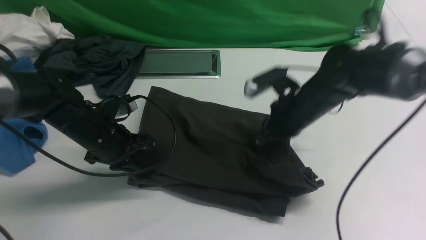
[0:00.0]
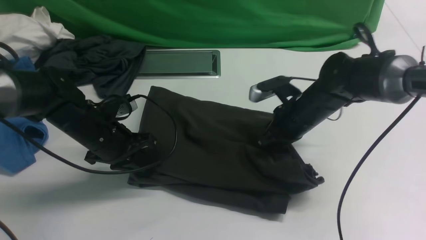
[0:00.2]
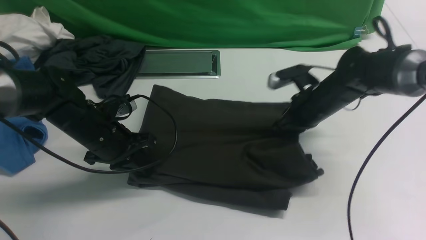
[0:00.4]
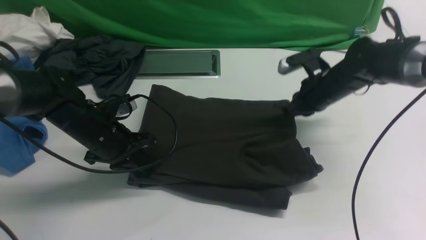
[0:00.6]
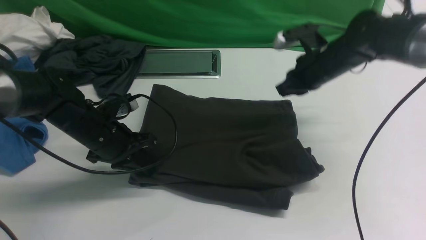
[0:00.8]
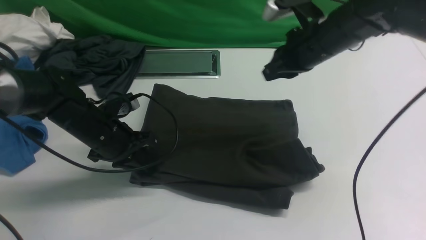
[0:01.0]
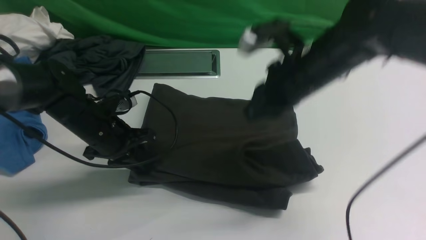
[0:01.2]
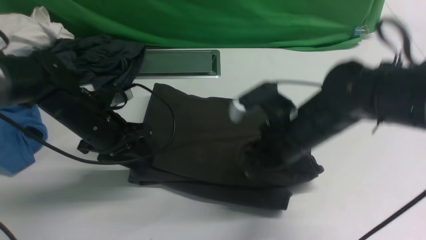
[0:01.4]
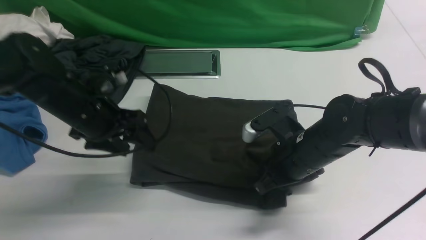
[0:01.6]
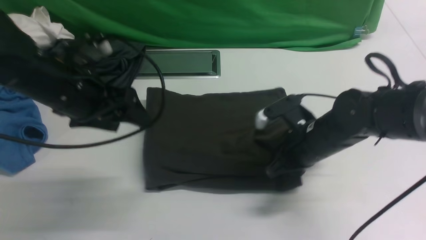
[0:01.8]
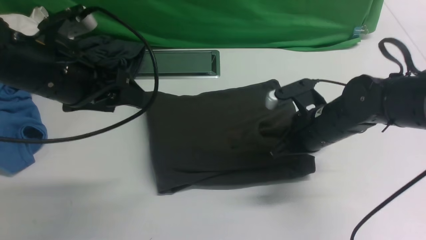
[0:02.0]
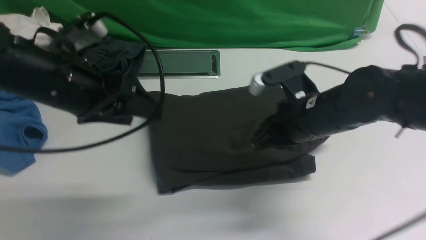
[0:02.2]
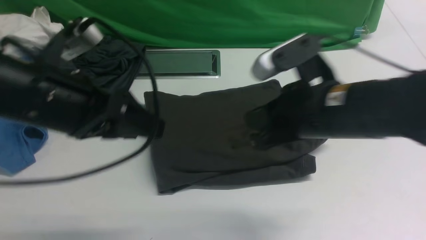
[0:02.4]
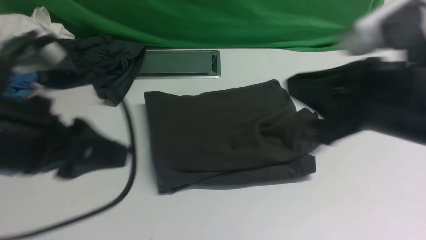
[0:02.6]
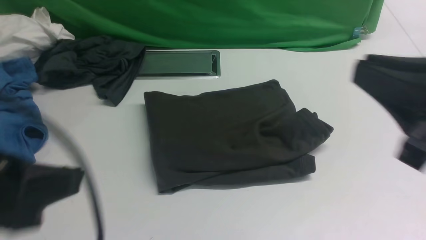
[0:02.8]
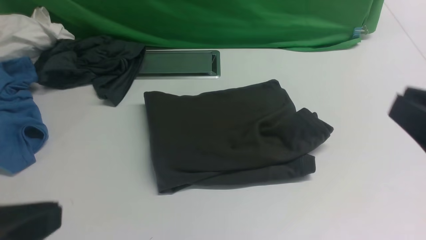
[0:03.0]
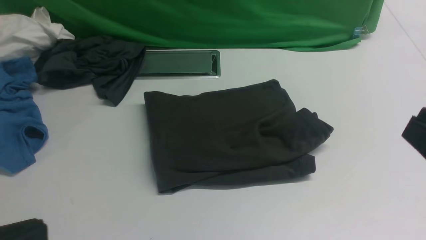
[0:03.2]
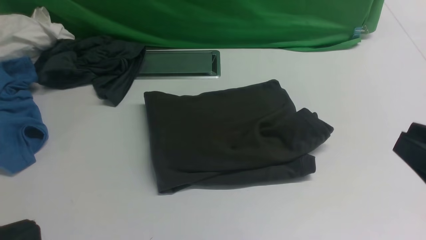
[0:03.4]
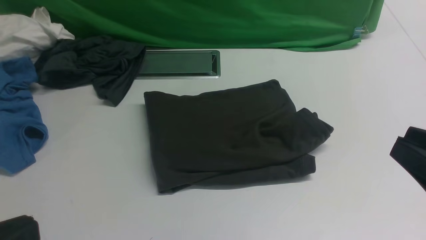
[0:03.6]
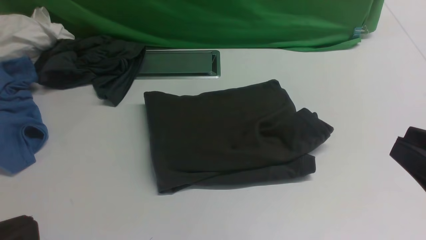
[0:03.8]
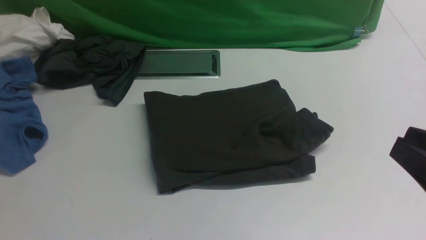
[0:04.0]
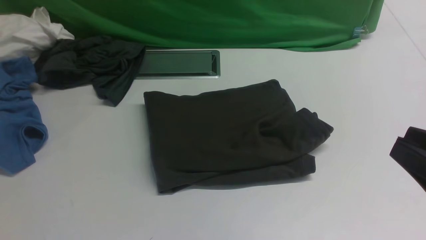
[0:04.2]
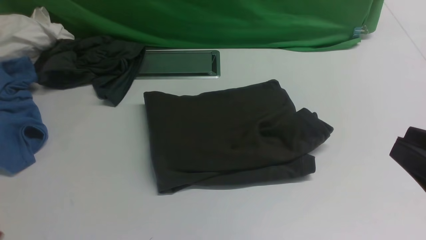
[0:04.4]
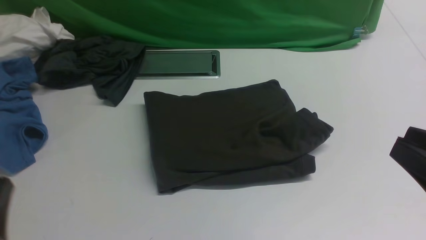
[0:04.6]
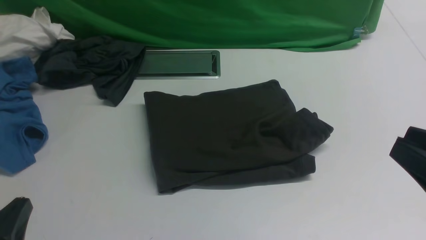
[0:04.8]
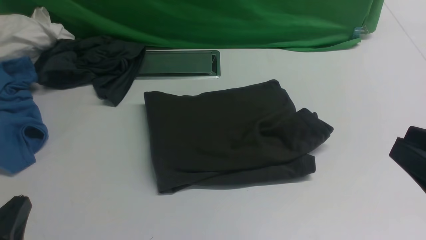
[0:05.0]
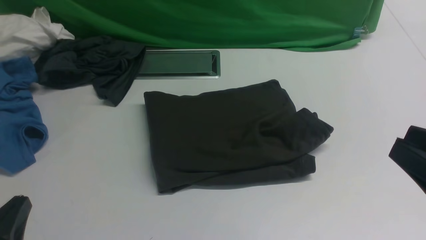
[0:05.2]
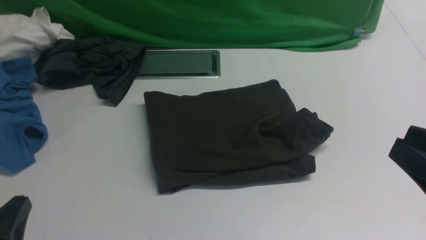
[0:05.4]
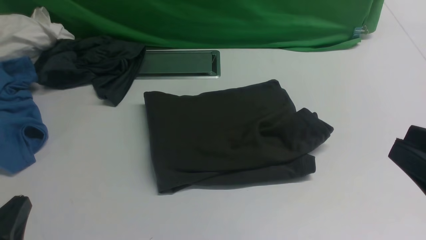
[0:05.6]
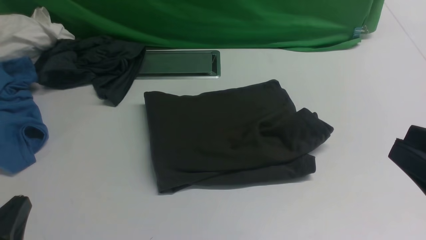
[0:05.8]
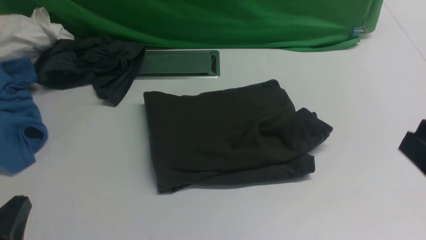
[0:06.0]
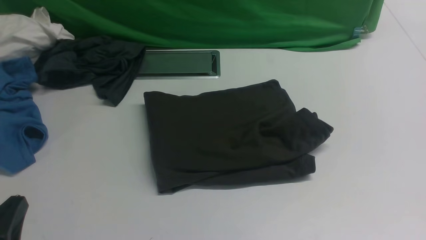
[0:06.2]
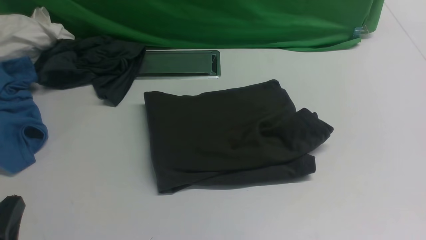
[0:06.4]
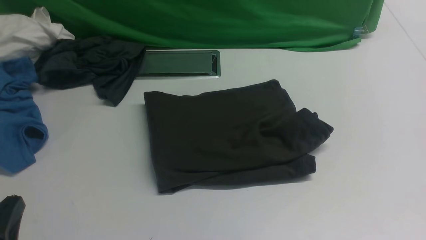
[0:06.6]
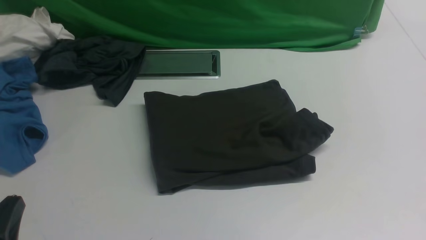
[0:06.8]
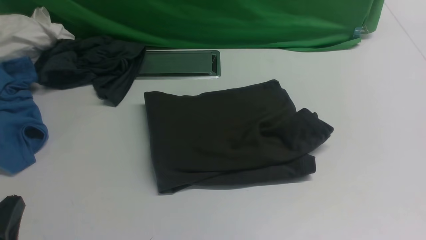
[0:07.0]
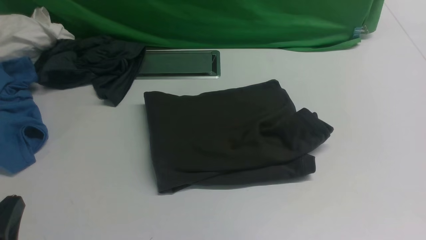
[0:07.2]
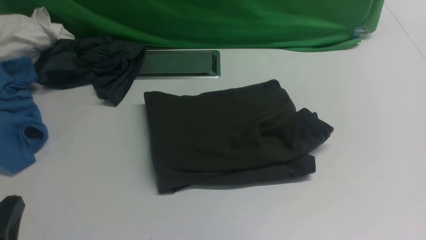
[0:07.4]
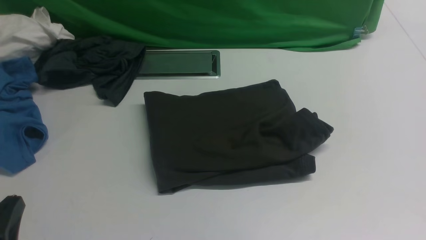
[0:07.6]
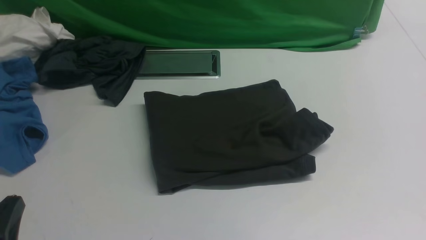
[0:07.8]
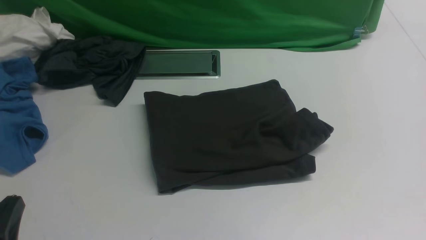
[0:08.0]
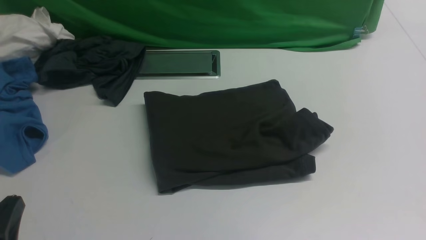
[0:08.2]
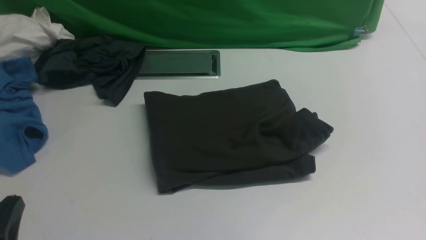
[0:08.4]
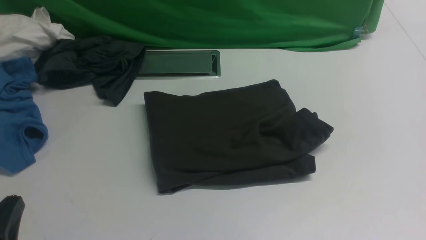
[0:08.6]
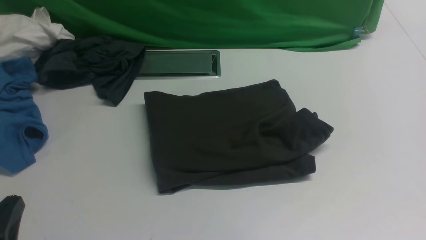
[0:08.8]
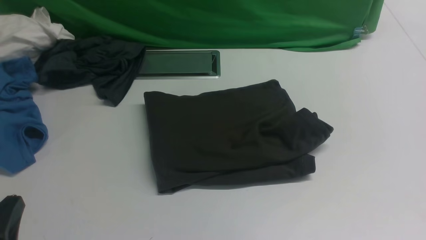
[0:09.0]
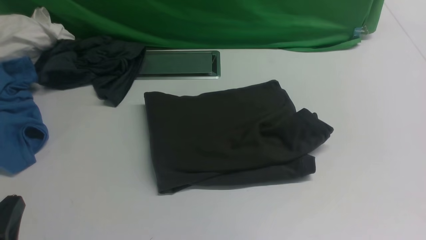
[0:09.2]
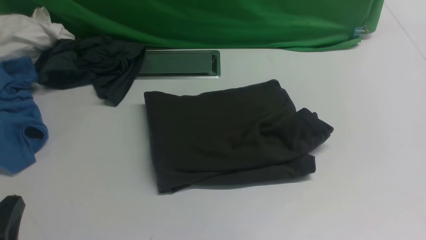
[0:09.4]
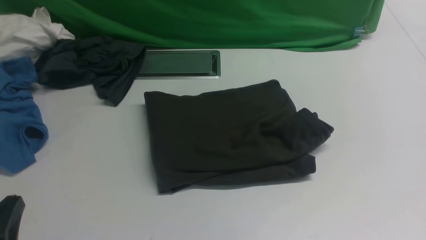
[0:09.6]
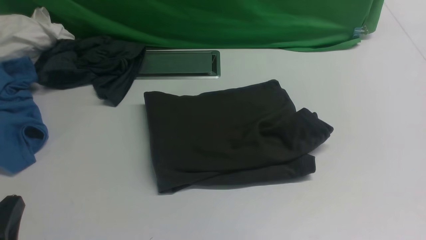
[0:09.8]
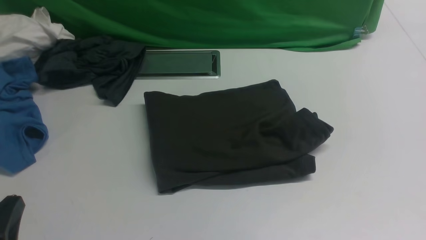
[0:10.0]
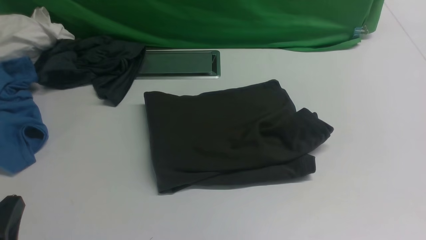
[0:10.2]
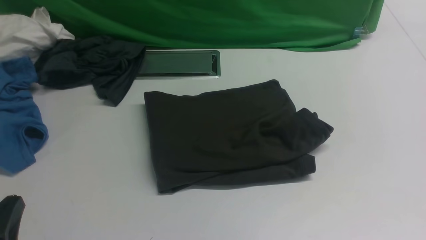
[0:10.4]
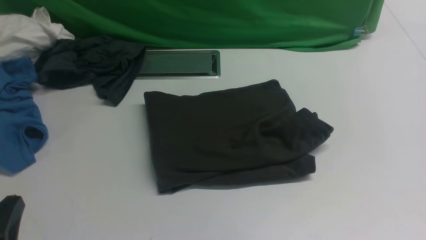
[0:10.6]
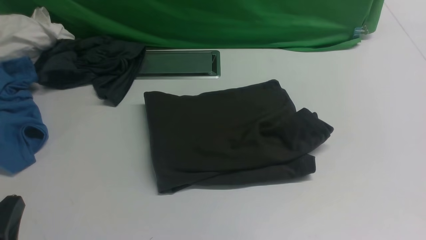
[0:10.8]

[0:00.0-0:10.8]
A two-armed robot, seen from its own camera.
0:00.0 to 0:01.6: The right gripper heads backward, covering roughly 5 cm. Meanwhile the left gripper moves upward, roughly 5 cm, and opens up.
0:01.6 to 0:03.0: The left gripper travels backward and upward by some 30 cm, and closes its fingers. Meanwhile the right gripper travels backward, upward and to the right by approximately 30 cm.
0:03.0 to 0:04.6: The left gripper heads downward, covering roughly 10 cm.
0:04.6 to 0:06.2: The grippers move only a little.
0:09.2 to 0:10.8: Both grippers stay put.

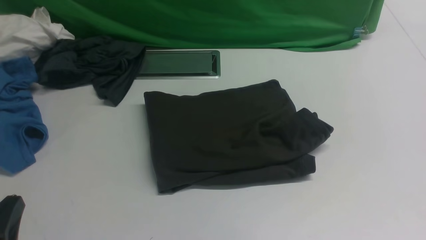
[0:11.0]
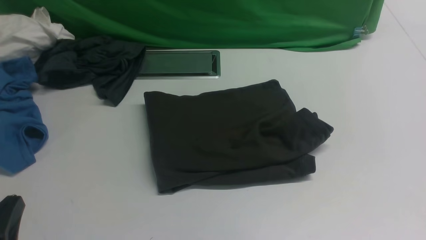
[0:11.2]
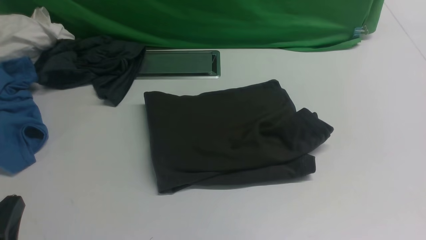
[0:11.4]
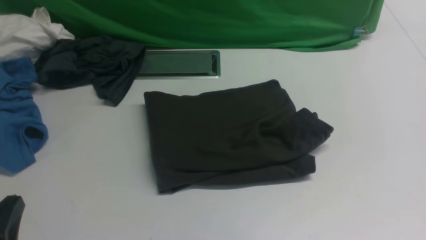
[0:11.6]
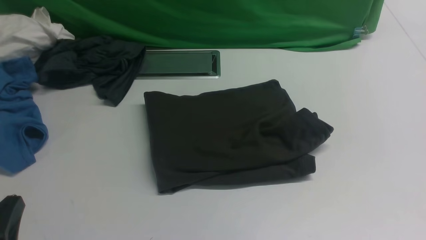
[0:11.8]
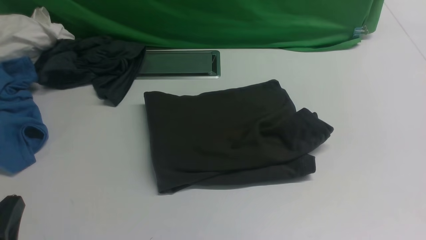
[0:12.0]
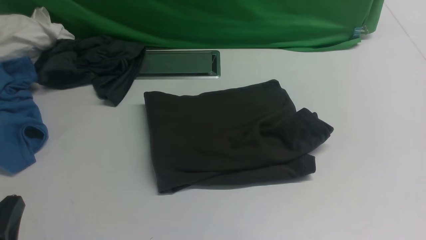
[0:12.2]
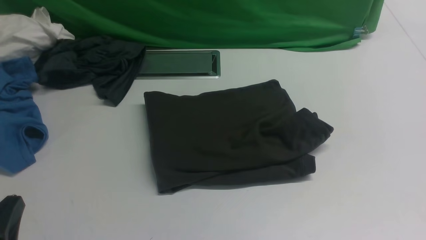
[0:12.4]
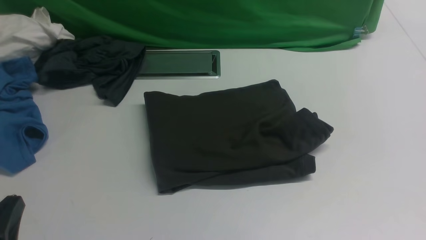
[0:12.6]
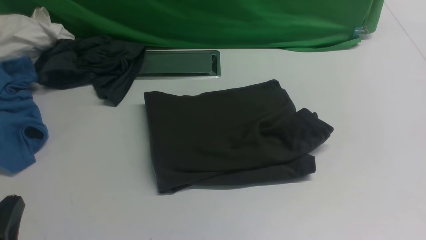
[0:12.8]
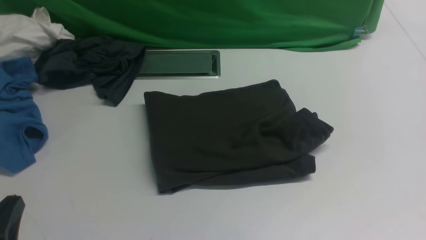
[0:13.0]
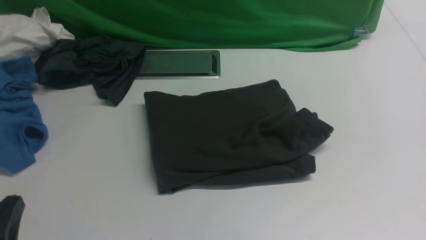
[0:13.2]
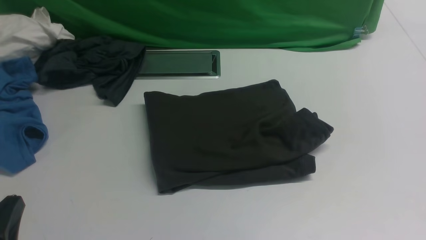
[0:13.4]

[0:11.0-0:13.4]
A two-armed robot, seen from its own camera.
0:11.0 to 0:13.4: The two grippers keep their place.

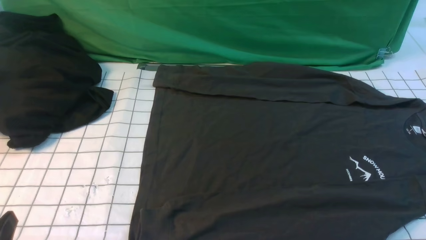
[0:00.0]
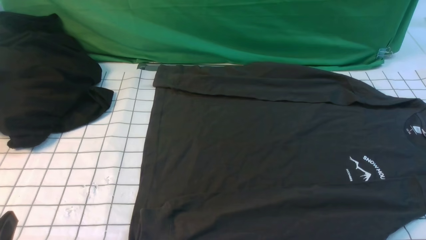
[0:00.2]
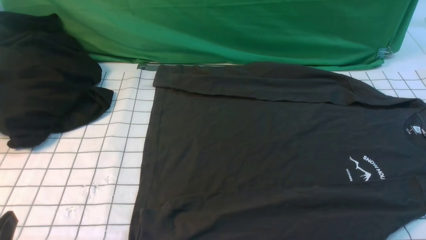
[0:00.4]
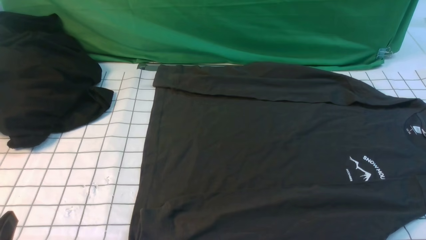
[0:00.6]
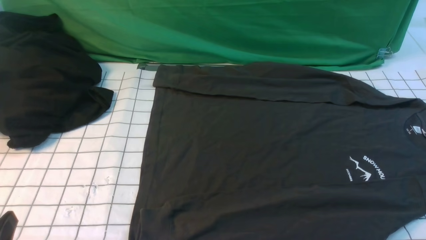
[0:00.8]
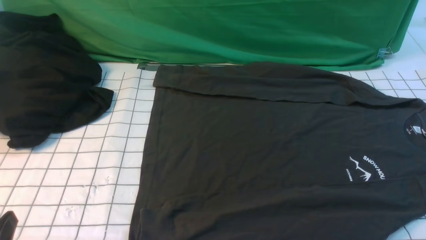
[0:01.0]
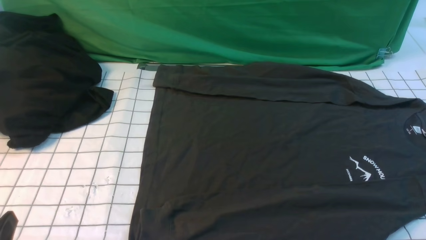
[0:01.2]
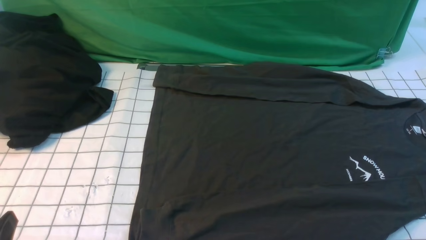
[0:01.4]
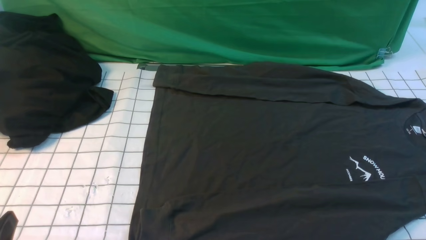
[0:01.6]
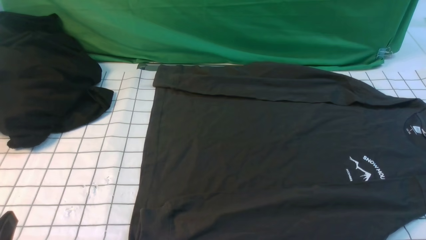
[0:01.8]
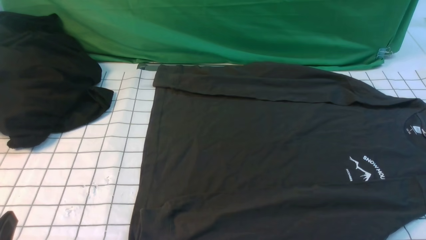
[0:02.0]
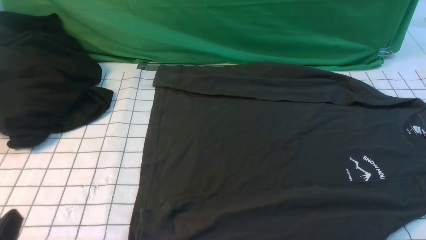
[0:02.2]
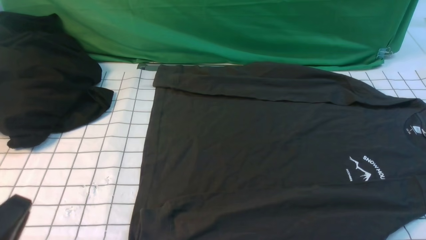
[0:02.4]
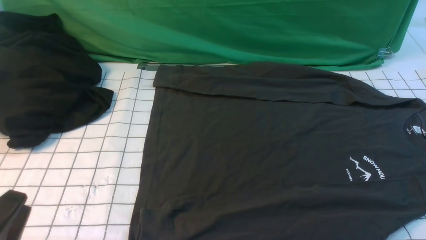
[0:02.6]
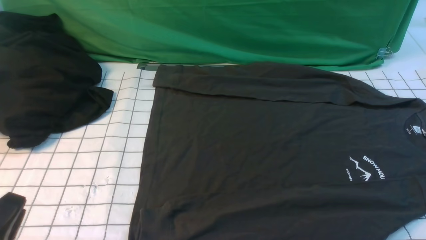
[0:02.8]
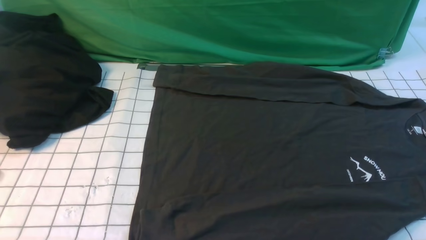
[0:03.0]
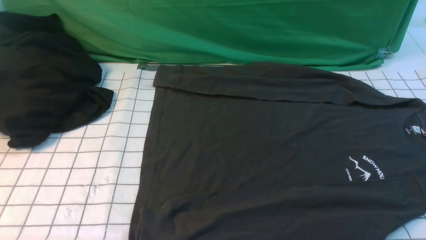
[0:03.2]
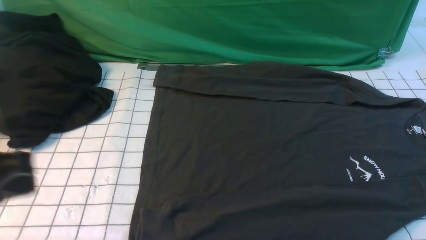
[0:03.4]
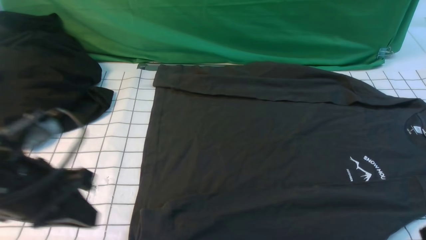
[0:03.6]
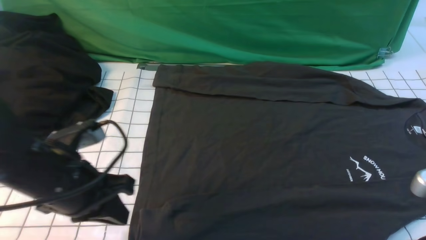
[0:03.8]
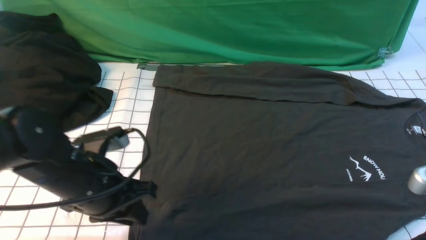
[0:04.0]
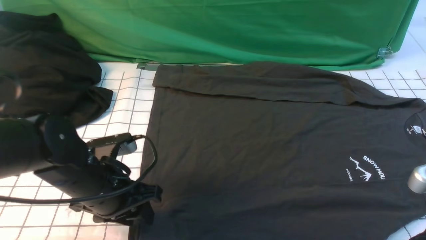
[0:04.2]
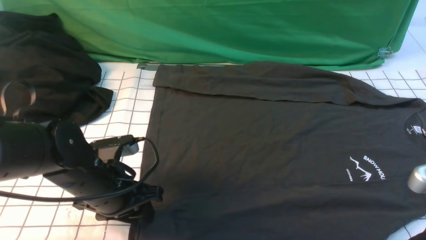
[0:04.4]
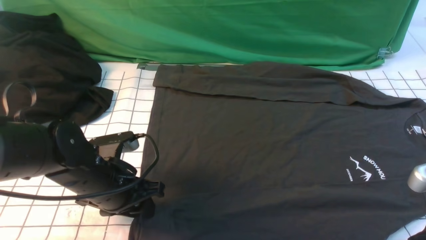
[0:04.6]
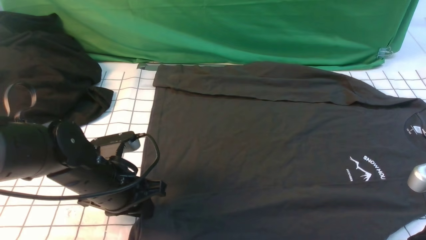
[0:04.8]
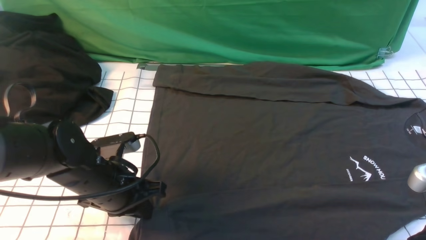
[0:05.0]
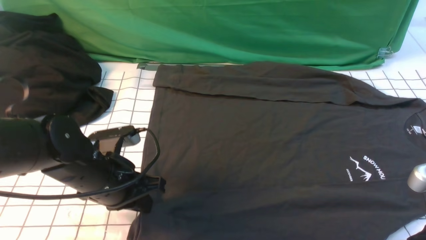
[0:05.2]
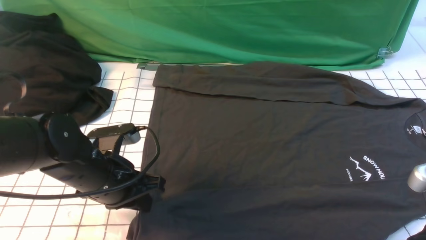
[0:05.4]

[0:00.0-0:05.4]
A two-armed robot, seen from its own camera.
0:00.0 to 0:01.4: Both grippers stay about where they are.
0:02.8 to 0:04.0: The right gripper travels forward by some 10 cm, while the left gripper travels forward and to the right by approximately 20 cm, and closes and opens again.
0:04.0 to 0:05.4: There are only small adjustments of the grippers.
